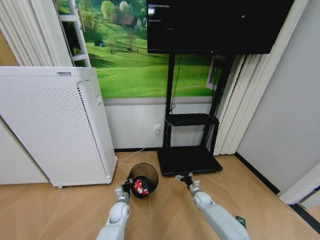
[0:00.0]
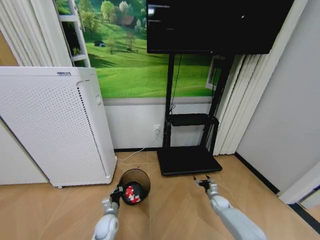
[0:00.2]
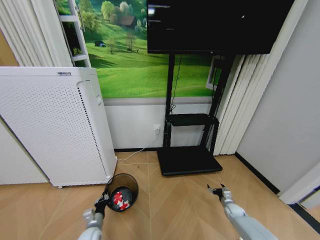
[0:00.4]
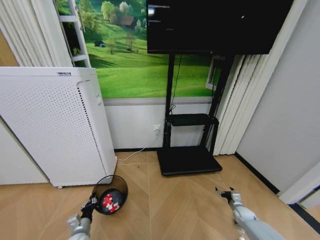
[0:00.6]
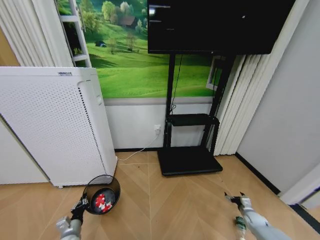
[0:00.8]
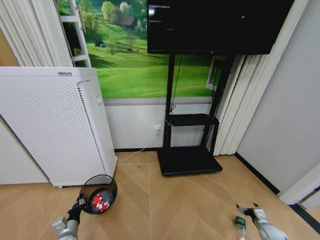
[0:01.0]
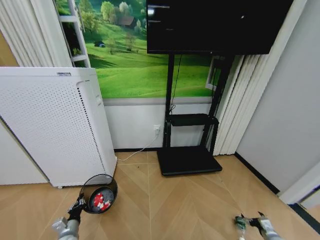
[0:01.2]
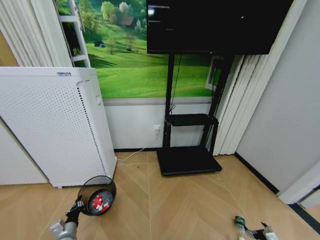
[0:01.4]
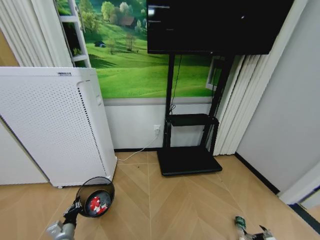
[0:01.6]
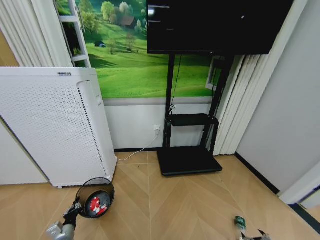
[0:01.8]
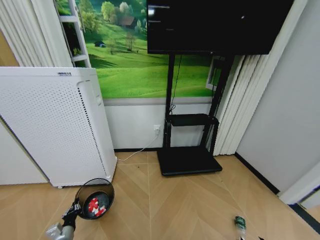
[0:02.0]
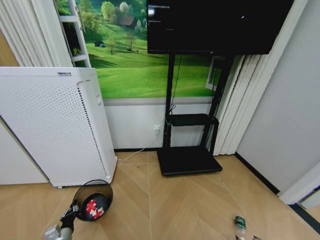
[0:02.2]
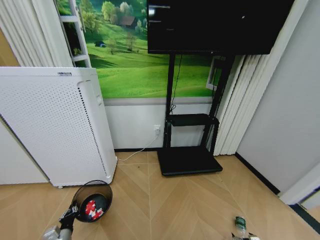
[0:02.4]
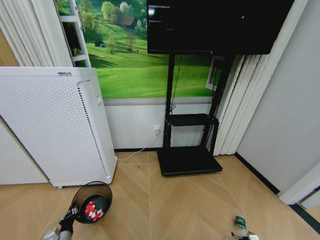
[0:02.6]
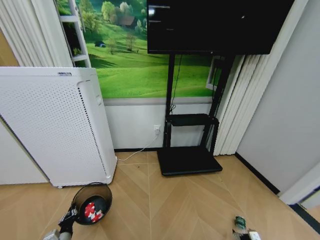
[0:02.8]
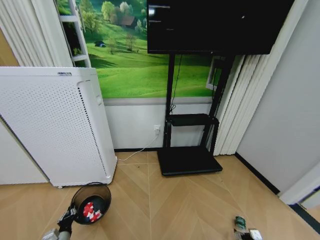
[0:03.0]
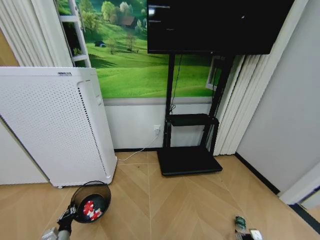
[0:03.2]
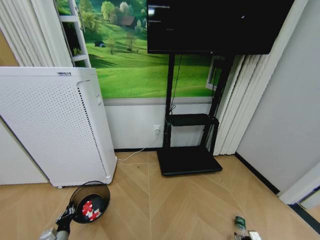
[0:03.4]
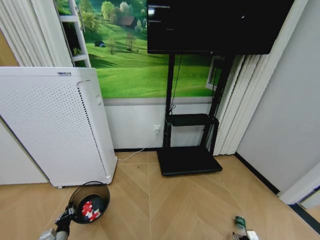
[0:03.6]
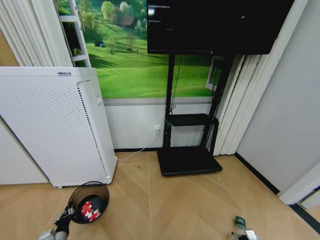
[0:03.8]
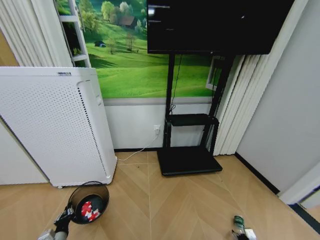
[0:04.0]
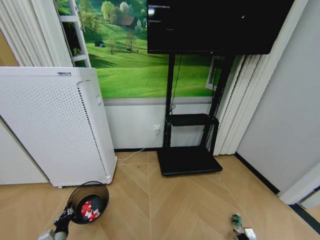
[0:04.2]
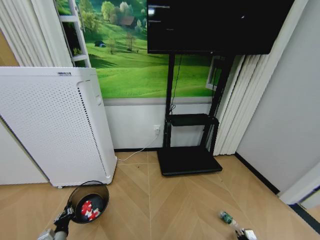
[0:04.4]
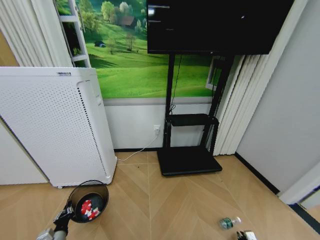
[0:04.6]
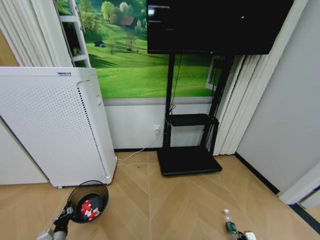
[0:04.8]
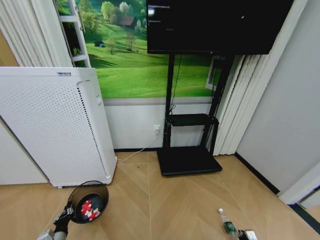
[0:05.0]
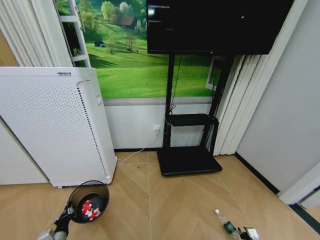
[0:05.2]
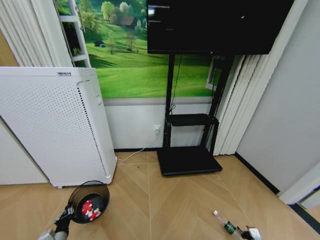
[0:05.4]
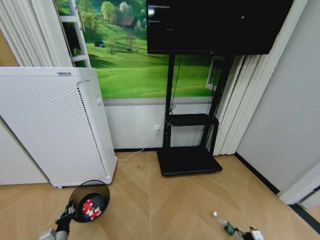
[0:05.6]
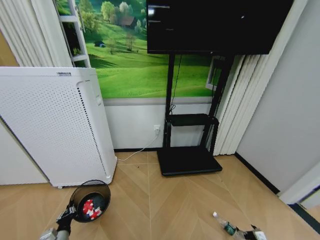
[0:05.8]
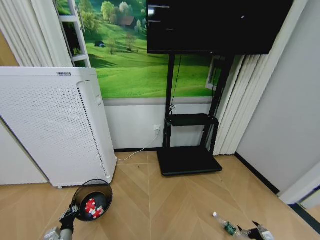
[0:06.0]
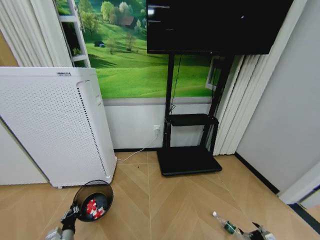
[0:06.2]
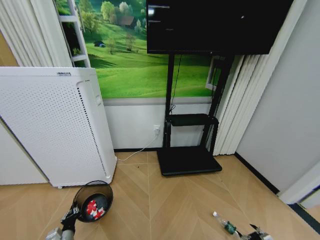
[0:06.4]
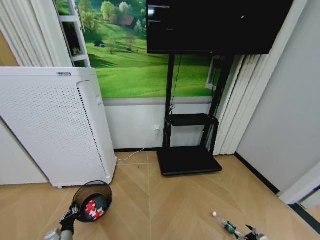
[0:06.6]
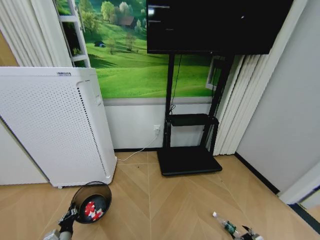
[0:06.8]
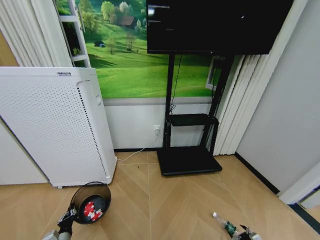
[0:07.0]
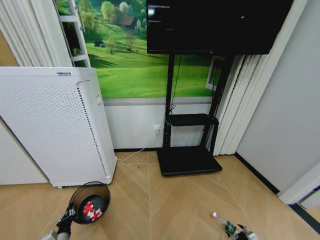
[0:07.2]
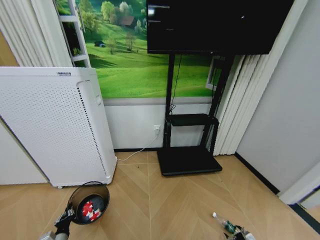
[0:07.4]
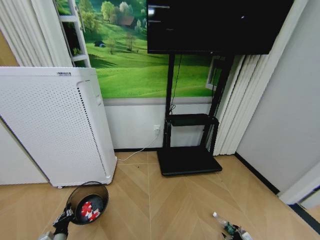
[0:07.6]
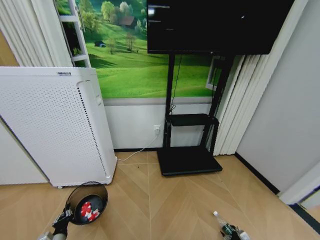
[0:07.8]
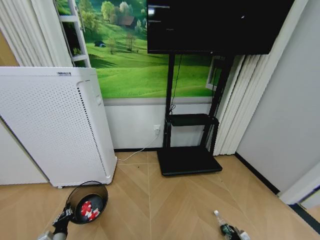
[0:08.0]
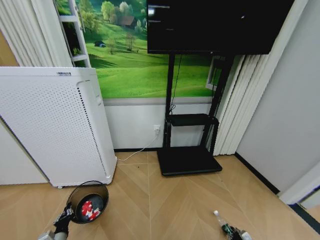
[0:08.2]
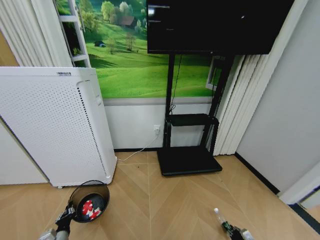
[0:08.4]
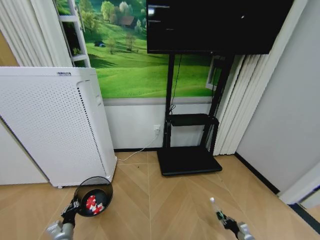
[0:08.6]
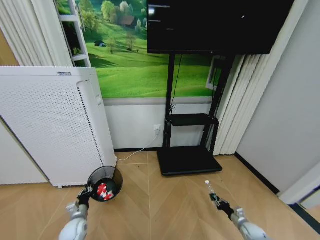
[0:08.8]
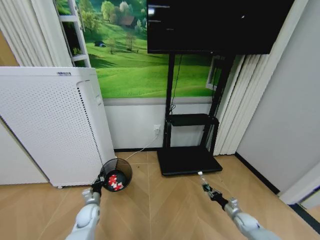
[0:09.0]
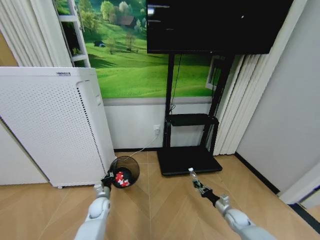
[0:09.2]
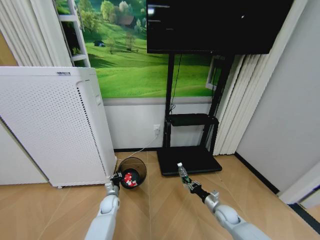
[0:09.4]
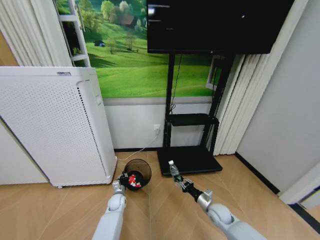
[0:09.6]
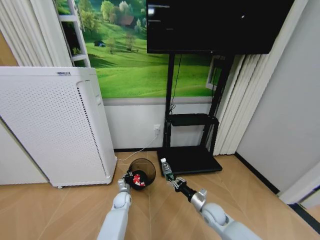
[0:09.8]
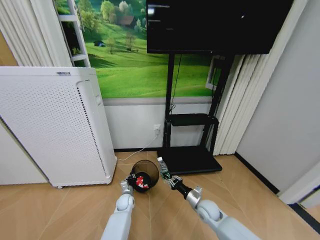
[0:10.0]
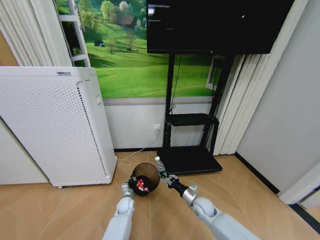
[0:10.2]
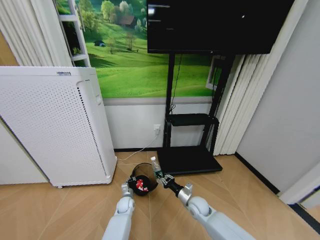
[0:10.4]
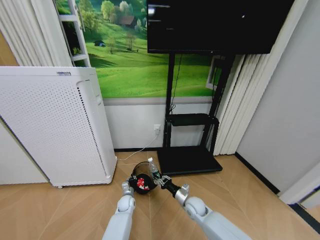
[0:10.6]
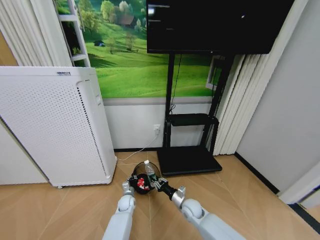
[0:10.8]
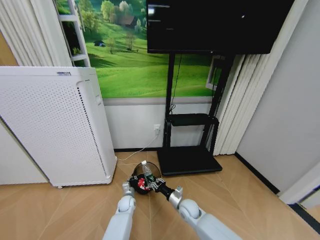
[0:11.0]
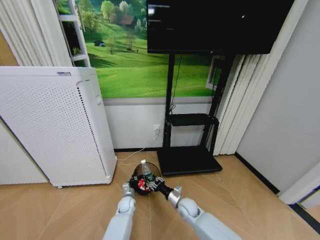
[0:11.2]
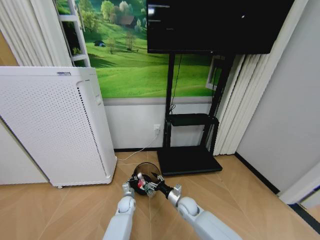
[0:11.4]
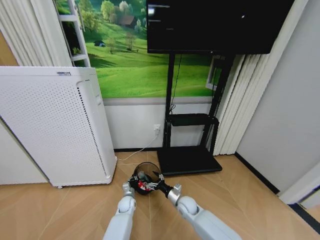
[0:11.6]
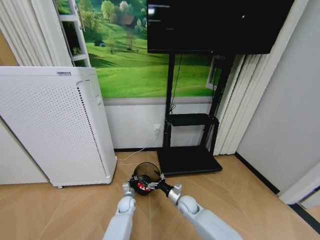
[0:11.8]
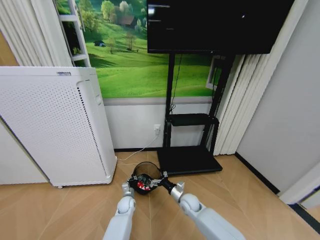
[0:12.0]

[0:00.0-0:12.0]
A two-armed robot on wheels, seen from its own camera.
Task of the whole recording: Pick up the trash bin and place the garbage on the floor into it.
0:00.0 to 0:01.6: The right gripper goes about 40 cm to the right and backward, while the left gripper travels to the left and backward by about 25 cm.
0:01.6 to 0:03.0: The right gripper shifts by some 5 cm.
0:03.0 to 0:04.4: The right gripper closes up.
0:04.4 to 0:06.0: The right gripper goes about 10 cm upward and to the right, and opens up.
0:06.0 to 0:07.6: The right gripper heads downward, covering approximately 5 cm.
0:07.6 to 0:09.0: The right gripper shifts some 15 cm forward and upward, and closes its fingers; the left gripper goes approximately 15 cm forward and to the right.
0:09.0 to 0:10.4: The left gripper shifts about 20 cm to the right and forward, while the right gripper heads to the left, covering some 30 cm.
0:10.4 to 0:12.0: The right gripper opens.

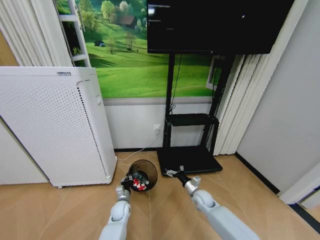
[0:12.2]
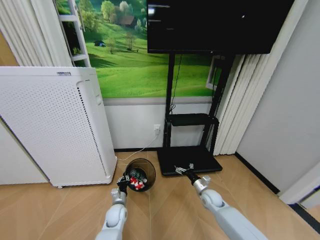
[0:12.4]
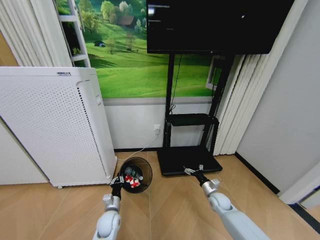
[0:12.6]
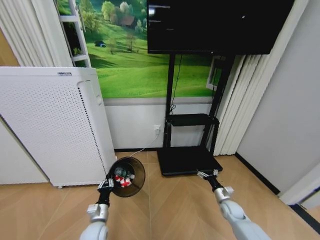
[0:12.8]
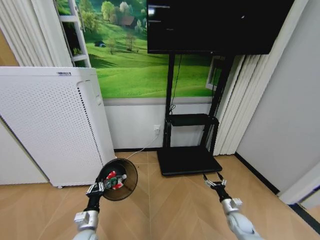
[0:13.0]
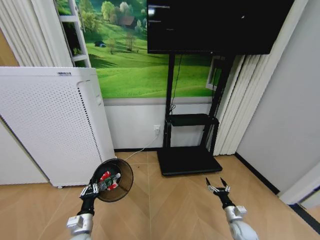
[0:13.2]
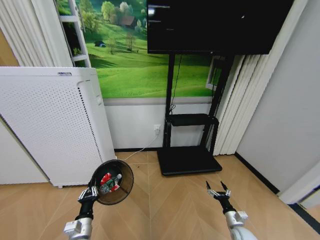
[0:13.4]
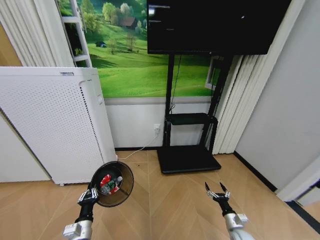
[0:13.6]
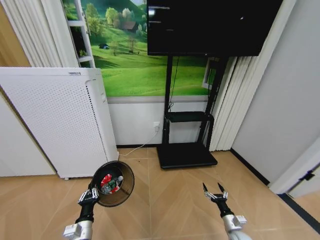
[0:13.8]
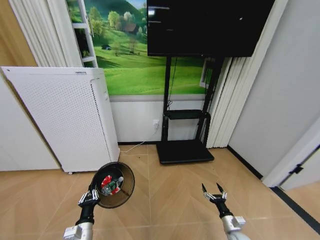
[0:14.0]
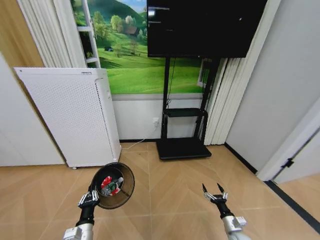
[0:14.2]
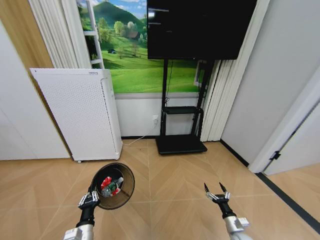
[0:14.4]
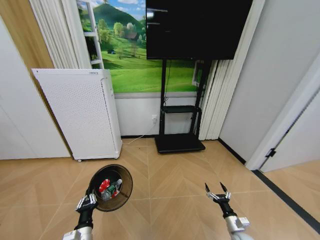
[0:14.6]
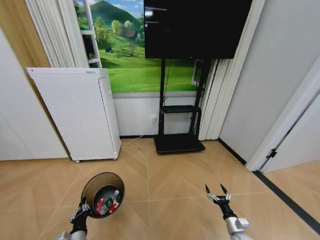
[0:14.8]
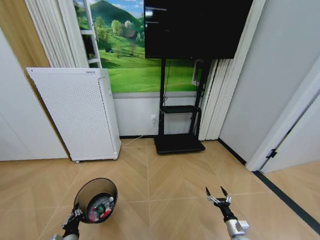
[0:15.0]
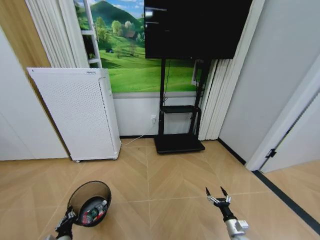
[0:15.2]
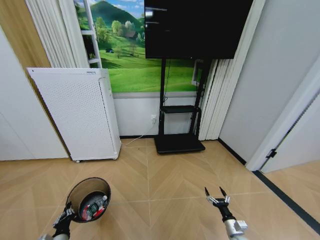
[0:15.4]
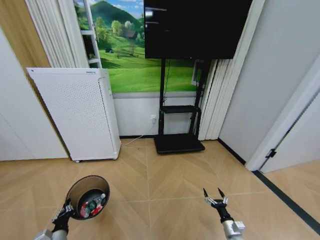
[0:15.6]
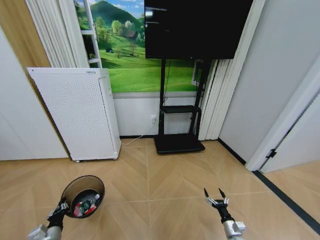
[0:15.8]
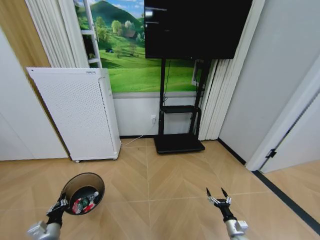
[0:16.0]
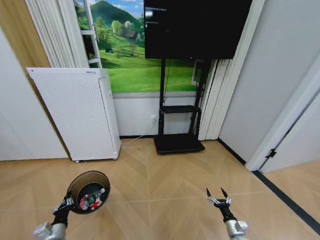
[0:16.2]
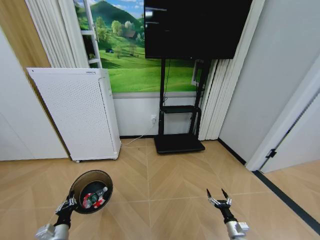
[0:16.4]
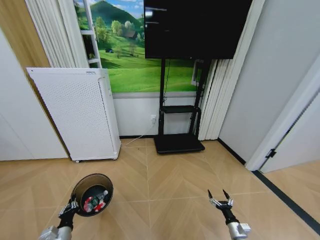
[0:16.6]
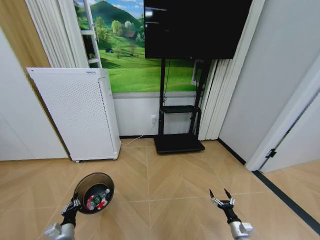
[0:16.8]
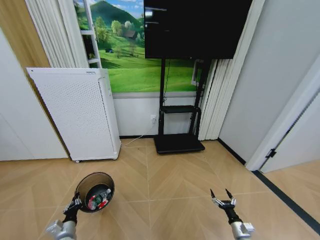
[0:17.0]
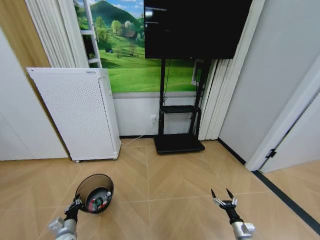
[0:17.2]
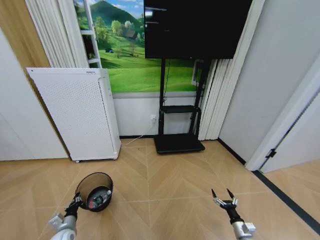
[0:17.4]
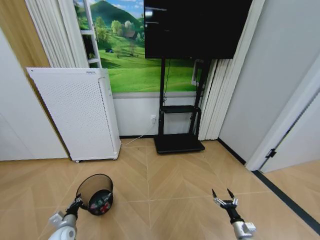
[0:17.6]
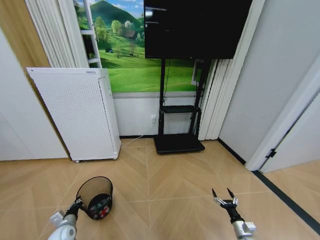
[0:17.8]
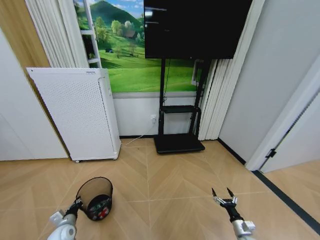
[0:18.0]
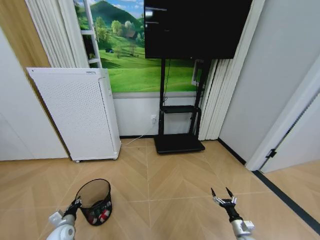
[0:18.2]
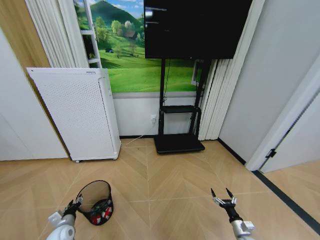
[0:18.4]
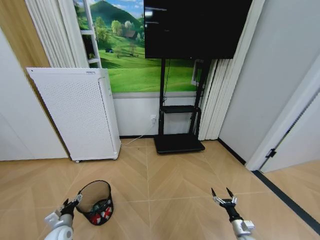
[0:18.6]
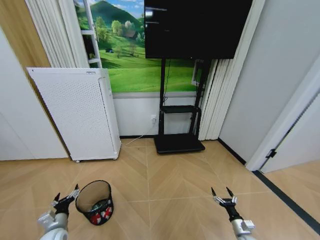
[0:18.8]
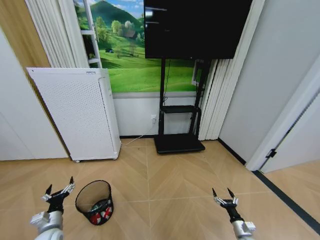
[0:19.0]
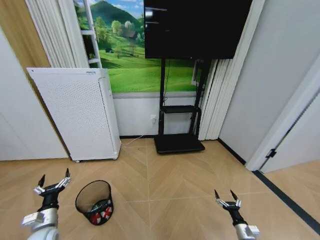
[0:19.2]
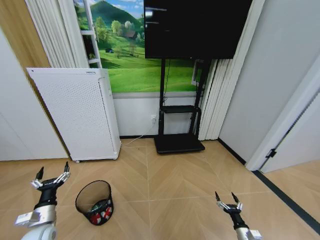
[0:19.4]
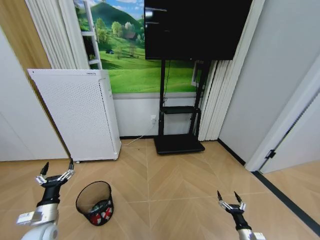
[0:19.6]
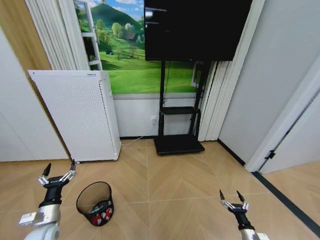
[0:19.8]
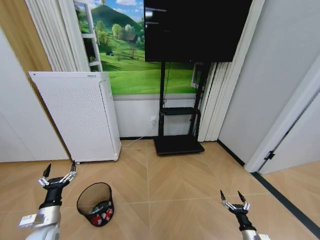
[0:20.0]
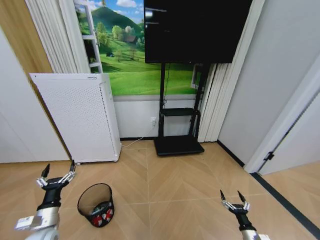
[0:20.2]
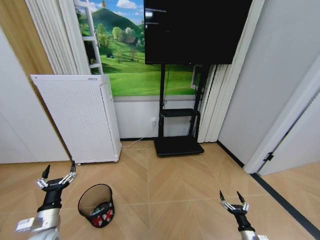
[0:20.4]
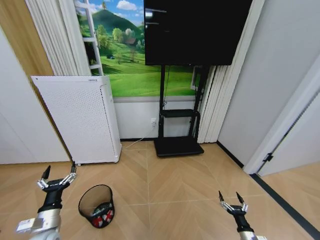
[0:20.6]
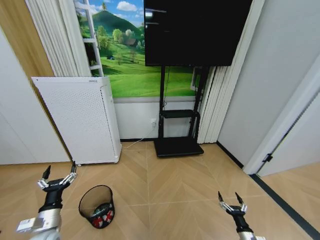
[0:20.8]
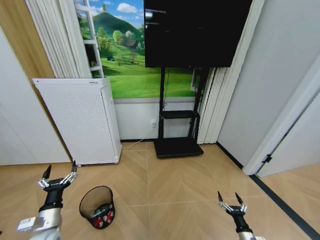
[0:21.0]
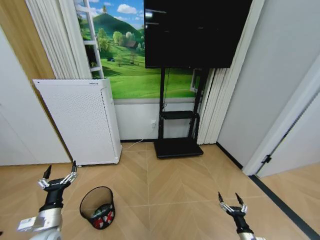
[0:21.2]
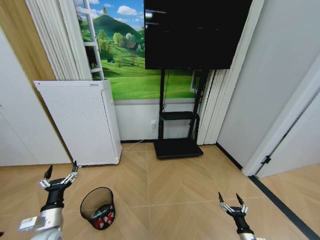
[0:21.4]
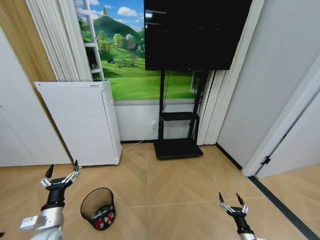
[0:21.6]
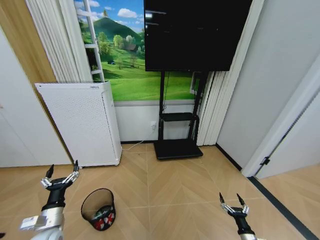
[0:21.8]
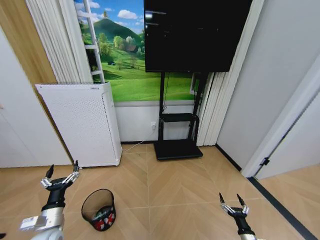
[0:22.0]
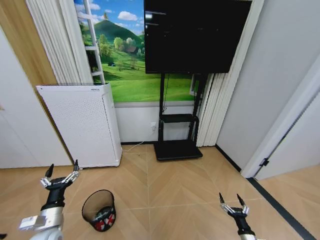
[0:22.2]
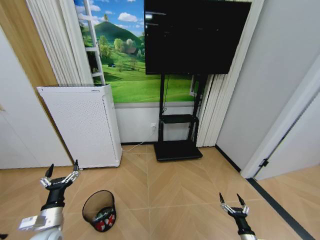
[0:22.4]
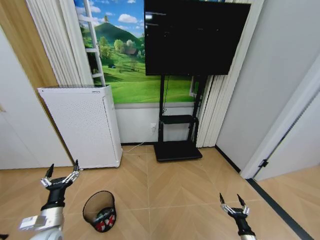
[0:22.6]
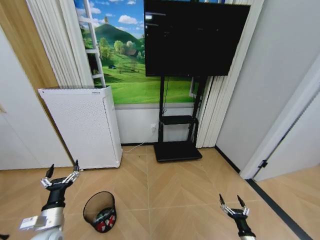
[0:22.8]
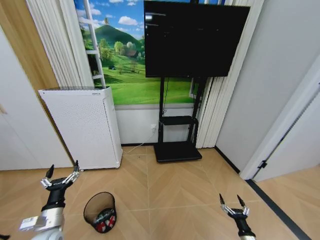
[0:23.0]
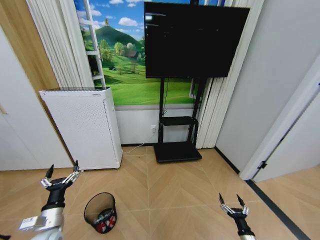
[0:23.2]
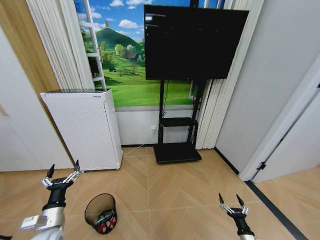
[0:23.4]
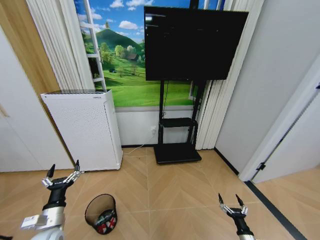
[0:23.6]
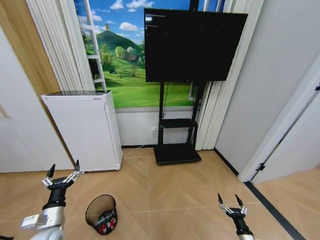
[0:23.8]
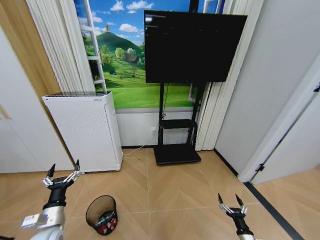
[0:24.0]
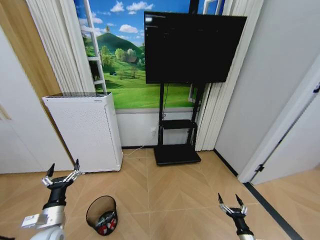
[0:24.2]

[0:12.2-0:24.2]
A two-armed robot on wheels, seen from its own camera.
Task of the whole recording: Pick up the trash bin and place the garbage on the floor into it.
0:12.2 to 0:13.8: The right gripper travels backward, to the right and downward by some 25 cm. Meanwhile the left gripper is displaced backward, upward and to the left by some 25 cm.
0:13.8 to 0:15.2: The left gripper heads to the left and downward, covering some 10 cm.
0:16.6 to 0:18.2: The left gripper heads forward, covering approximately 5 cm.
0:18.2 to 0:19.8: The right gripper shifts by some 5 cm; the left gripper shifts roughly 15 cm upward, and opens up.
0:19.8 to 0:21.2: The grippers make only small movements.
0:21.2 to 0:24.2: Both grippers stay about where they are.
